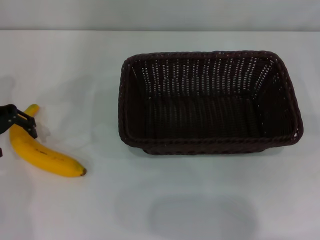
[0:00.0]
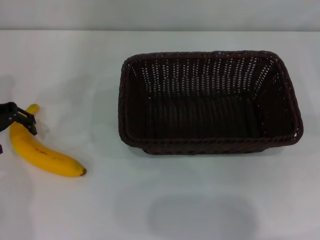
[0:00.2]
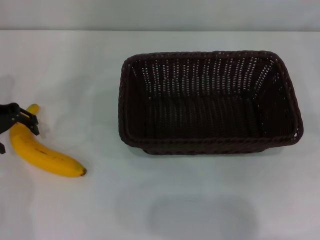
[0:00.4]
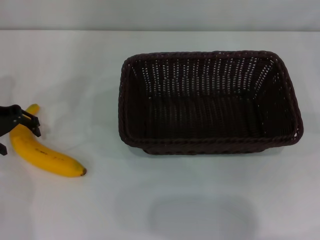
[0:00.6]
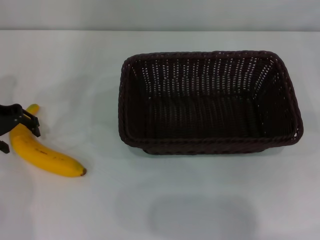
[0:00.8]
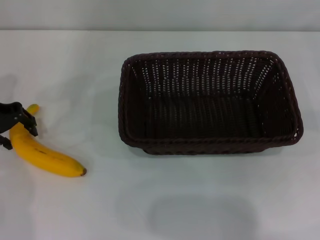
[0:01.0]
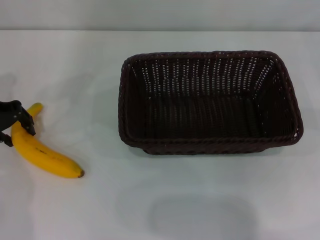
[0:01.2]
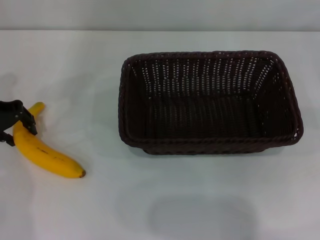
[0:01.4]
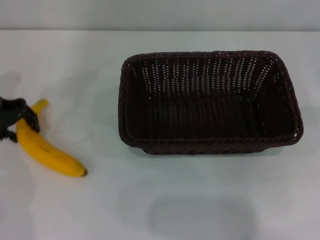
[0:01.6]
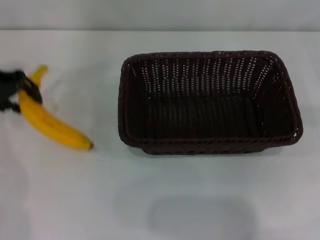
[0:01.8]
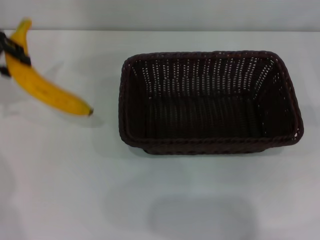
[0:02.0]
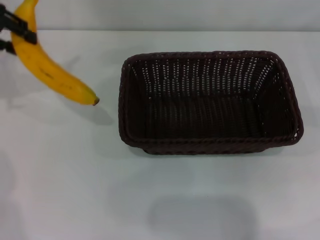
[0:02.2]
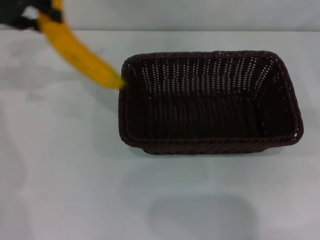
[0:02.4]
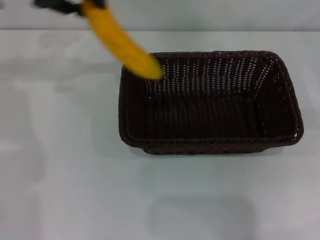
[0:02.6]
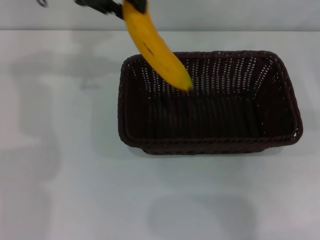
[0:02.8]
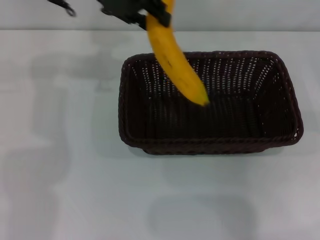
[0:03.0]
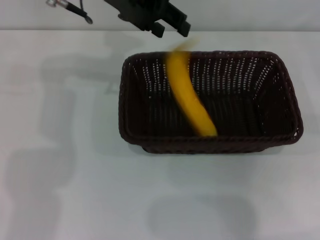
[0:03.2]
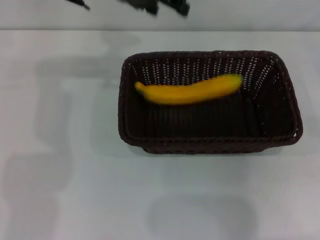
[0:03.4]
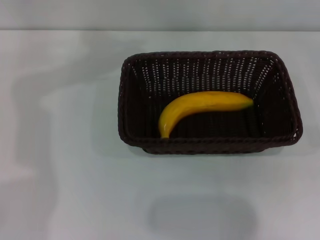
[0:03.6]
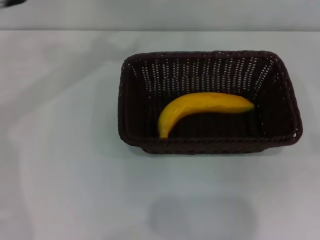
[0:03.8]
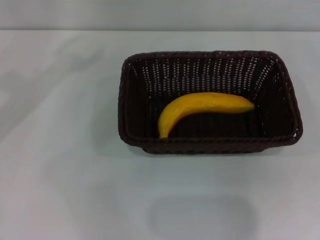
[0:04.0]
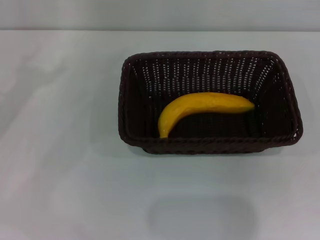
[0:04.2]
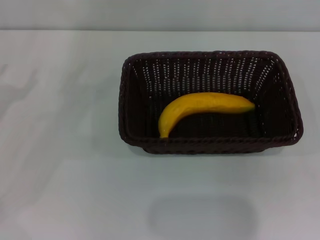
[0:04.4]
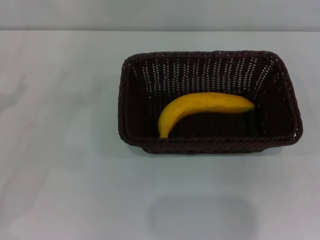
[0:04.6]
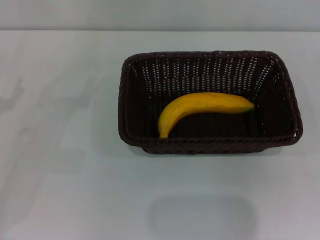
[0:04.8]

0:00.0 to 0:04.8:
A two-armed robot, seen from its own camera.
Step, 0:00.0 to 0:02.0: Pick up the banana with the left gripper.
Step, 0:02.2 to 0:03.2: Place the banana into the dark basket with the left gripper.
0:00.0 to 0:01.6: The left gripper closes its fingers.
0:01.6 to 0:03.2: The left gripper moves to the right and upward, some 20 cm.
0:03.2 to 0:04.8: The left gripper heads to the left, downward and backward, covering some 35 cm, and opens; the right gripper goes some 10 cm downward and backward.

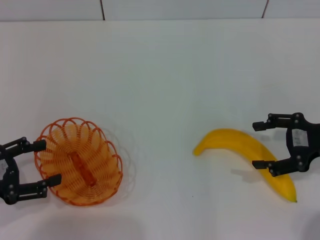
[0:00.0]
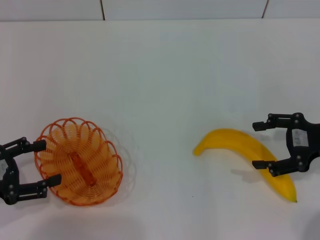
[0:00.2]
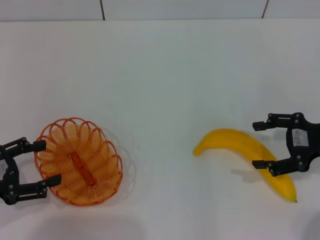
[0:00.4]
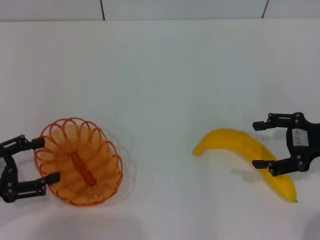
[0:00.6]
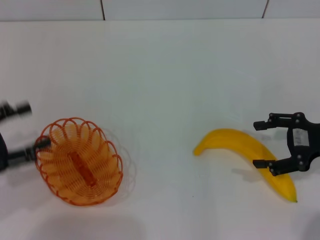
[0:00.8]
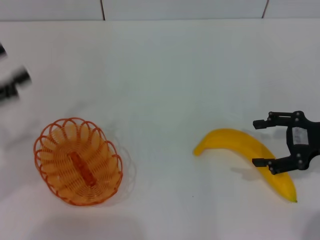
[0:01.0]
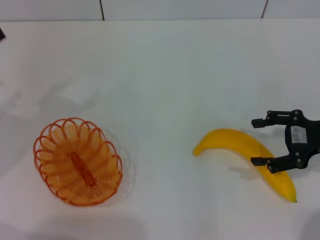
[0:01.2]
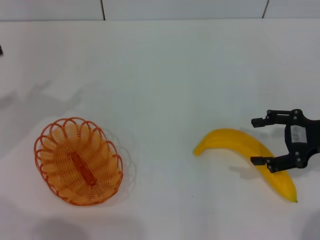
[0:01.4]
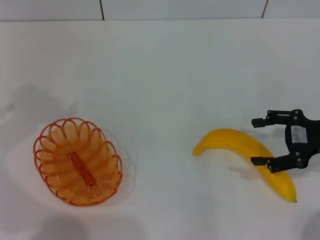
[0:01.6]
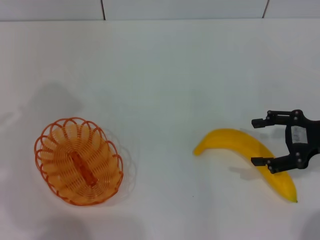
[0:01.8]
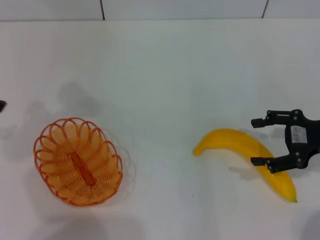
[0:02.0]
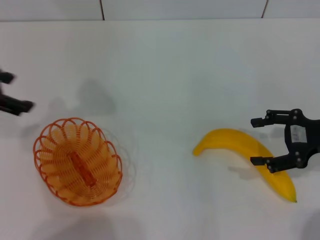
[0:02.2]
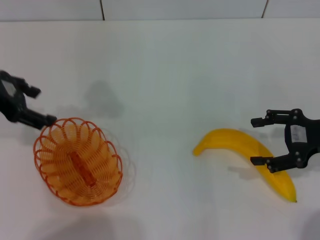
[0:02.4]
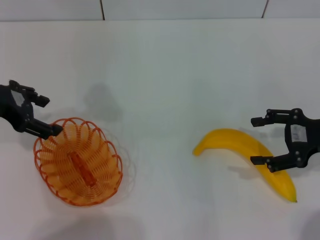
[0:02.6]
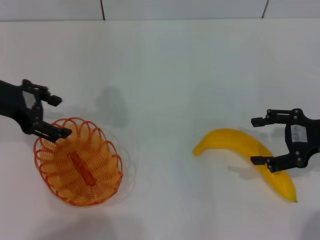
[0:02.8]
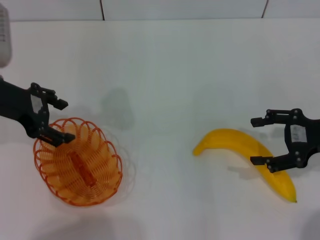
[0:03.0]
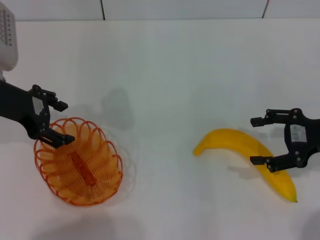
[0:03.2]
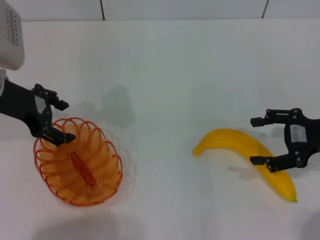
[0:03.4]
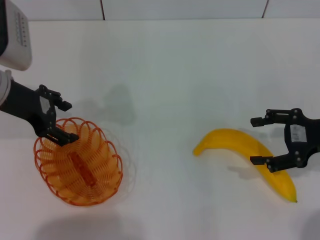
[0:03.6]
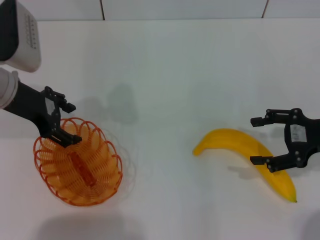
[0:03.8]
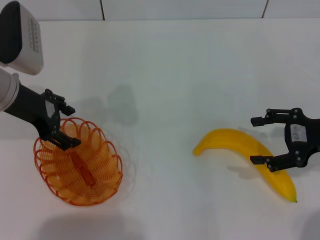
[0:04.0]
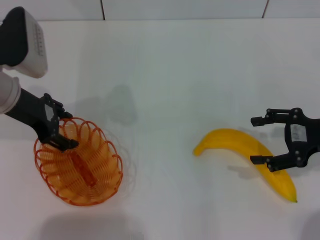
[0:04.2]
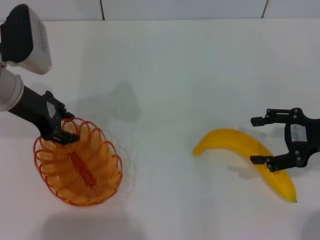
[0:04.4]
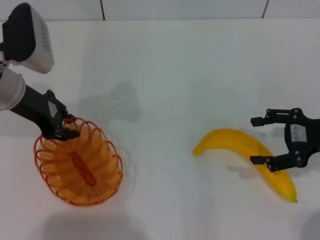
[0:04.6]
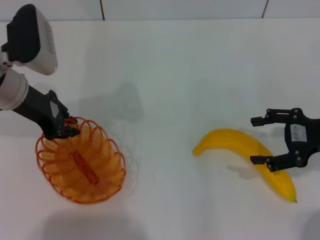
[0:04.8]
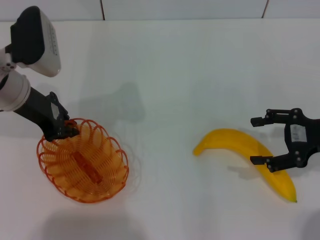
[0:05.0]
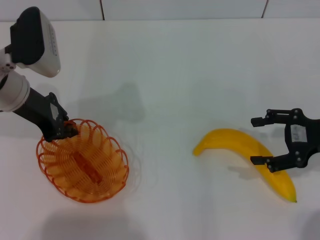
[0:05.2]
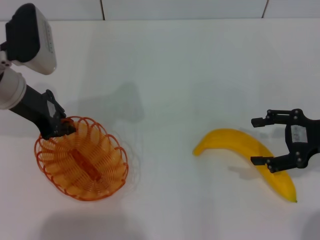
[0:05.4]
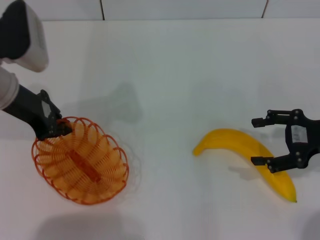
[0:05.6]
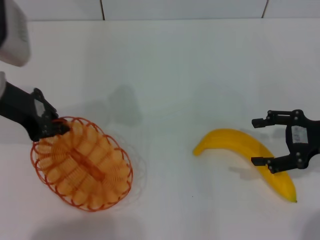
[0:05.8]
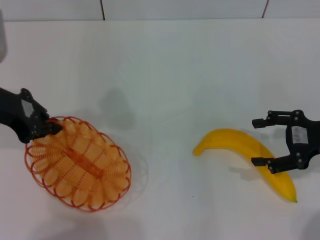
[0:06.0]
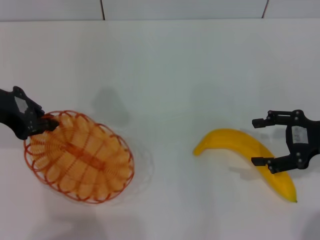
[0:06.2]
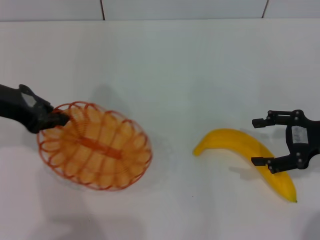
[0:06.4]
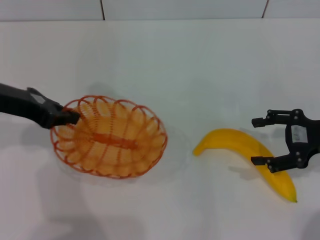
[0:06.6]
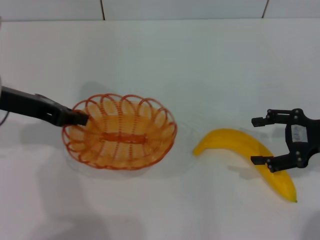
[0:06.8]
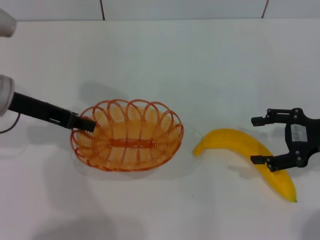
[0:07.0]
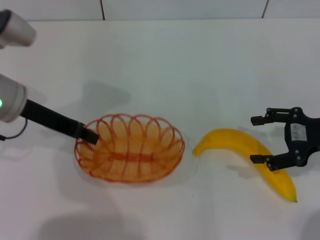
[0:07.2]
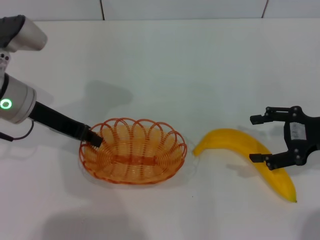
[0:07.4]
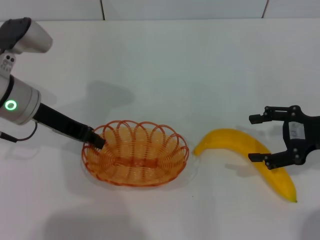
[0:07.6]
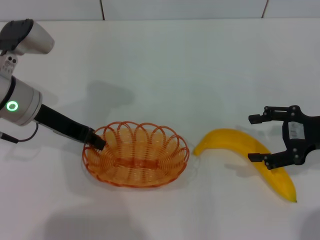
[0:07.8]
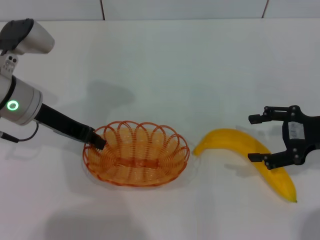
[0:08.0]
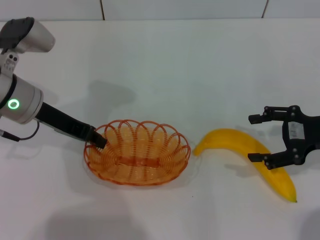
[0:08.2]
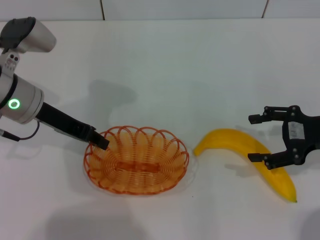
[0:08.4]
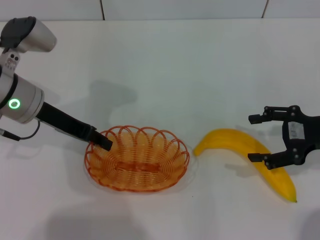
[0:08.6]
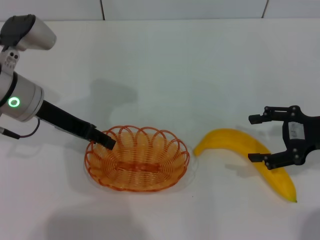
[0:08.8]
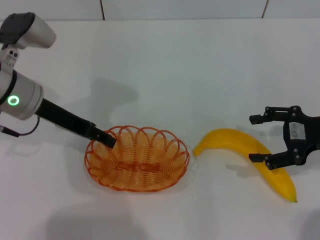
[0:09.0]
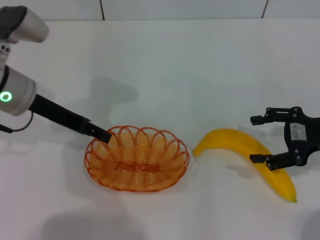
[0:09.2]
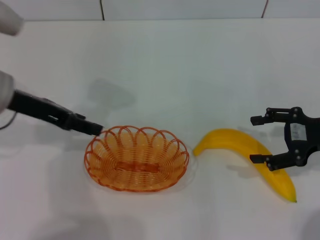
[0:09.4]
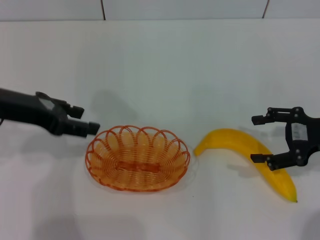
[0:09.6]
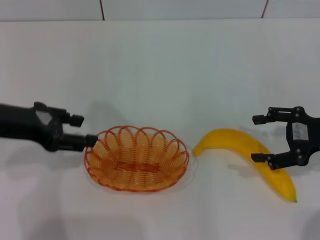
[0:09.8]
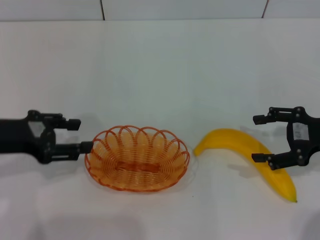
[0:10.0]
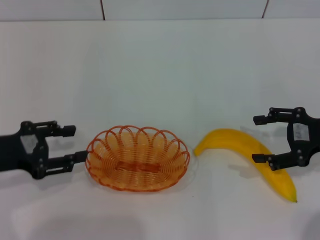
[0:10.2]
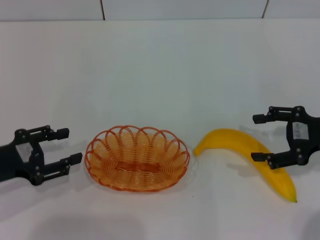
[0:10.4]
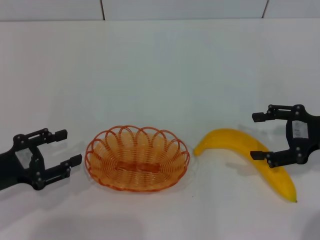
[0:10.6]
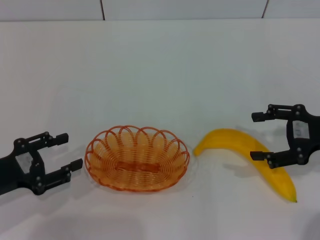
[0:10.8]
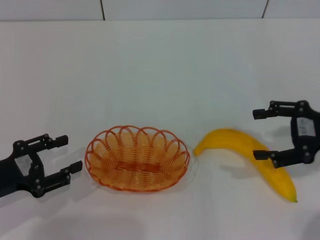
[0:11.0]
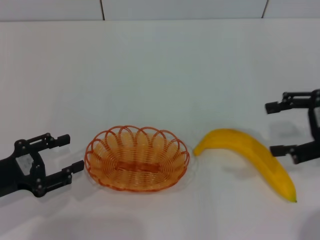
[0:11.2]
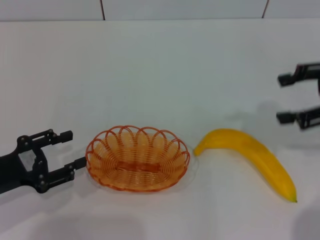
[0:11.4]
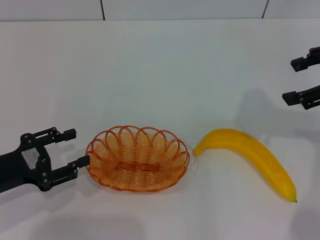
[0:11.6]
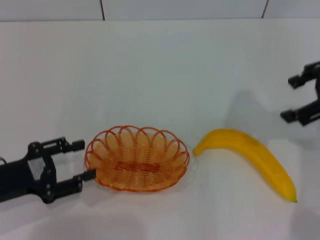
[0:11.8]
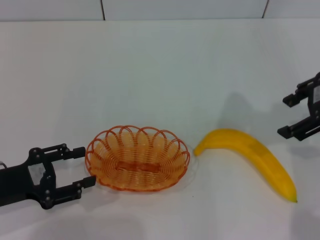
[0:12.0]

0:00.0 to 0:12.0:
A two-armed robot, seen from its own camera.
Step, 0:00.0 to 0:05.6: Pick up the basket with the left gripper.
Step, 0:05.8 to 0:10.2: Place the basket in the center of view with the left gripper.
0:00.0 to 0:01.6: The left gripper travels upward and forward by approximately 15 cm.
0:01.6 to 0:03.0: The left gripper goes roughly 15 cm to the right.
0:03.0 to 0:04.4: The grippers stay close to where they were, moving slightly.
0:04.4 to 0:06.0: The left gripper moves approximately 5 cm, and closes its fingers.
0:06.0 to 0:07.6: The left gripper travels downward by roughly 5 cm.
0:07.6 to 0:09.0: The left gripper opens up.
0:09.0 to 0:10.4: The left gripper shifts roughly 15 cm backward, to the left and downward.
0:10.4 to 0:12.0: The right gripper travels upward by roughly 15 cm.

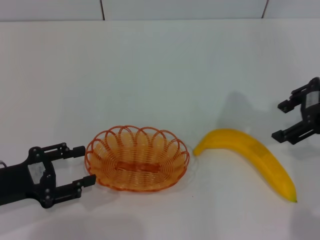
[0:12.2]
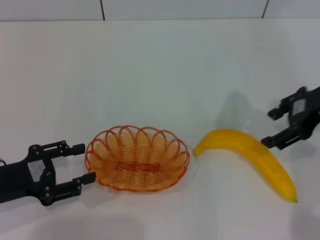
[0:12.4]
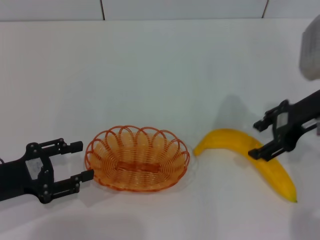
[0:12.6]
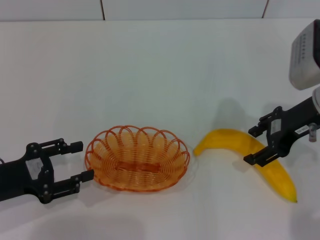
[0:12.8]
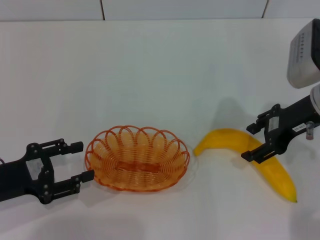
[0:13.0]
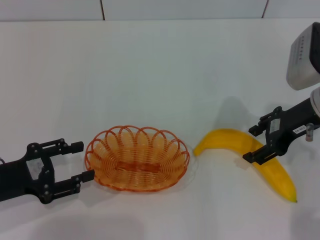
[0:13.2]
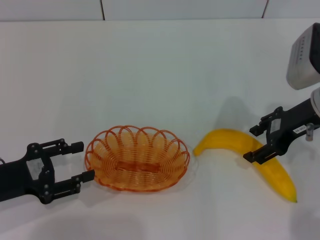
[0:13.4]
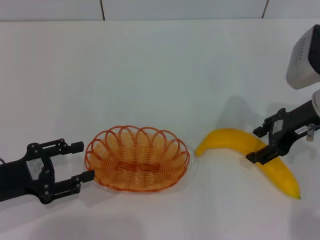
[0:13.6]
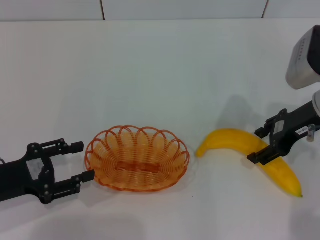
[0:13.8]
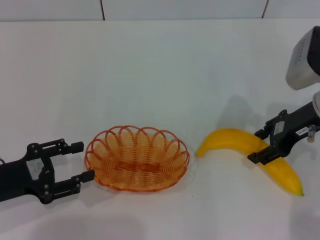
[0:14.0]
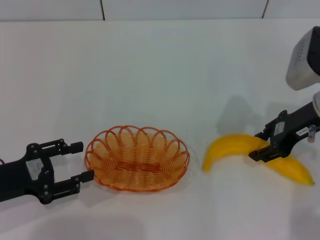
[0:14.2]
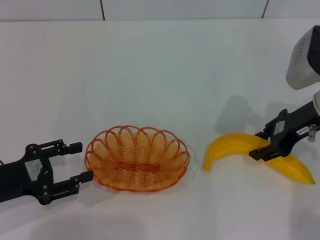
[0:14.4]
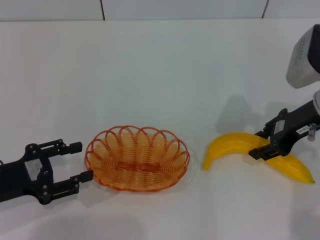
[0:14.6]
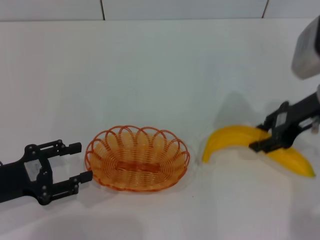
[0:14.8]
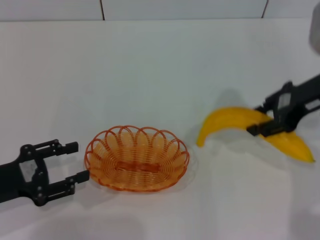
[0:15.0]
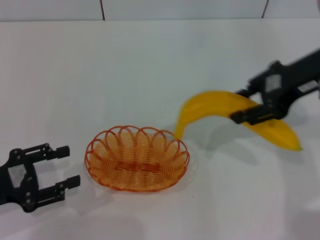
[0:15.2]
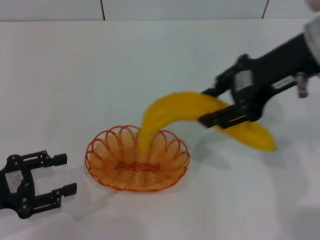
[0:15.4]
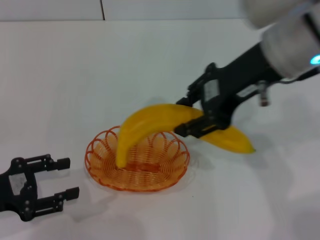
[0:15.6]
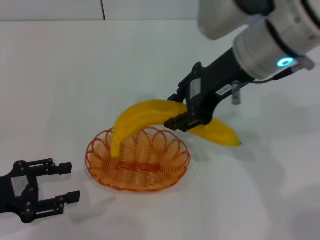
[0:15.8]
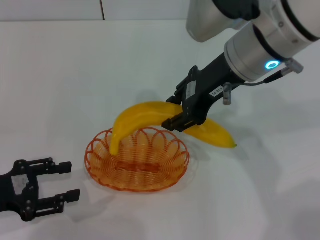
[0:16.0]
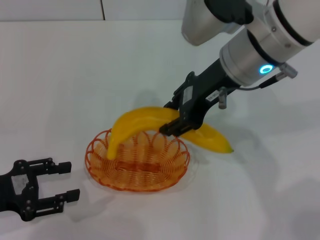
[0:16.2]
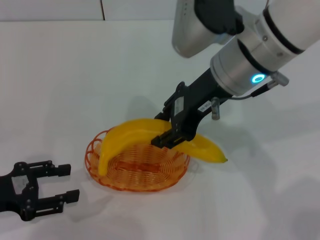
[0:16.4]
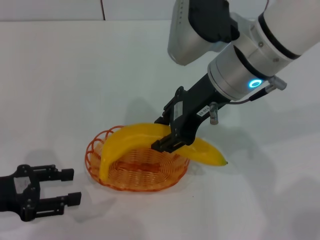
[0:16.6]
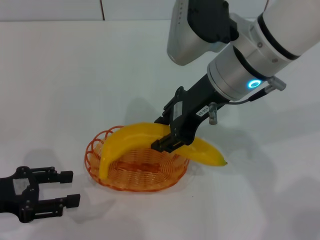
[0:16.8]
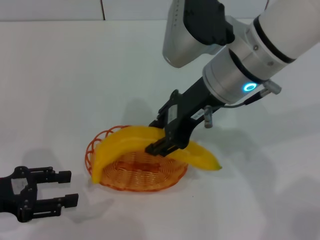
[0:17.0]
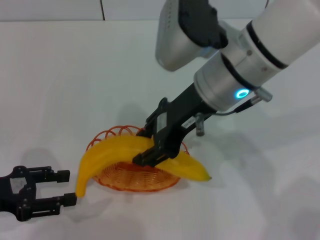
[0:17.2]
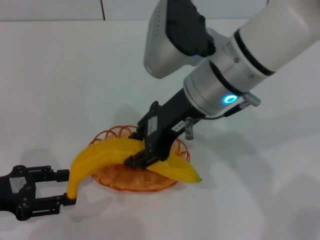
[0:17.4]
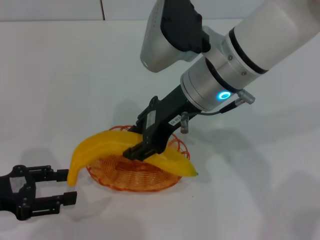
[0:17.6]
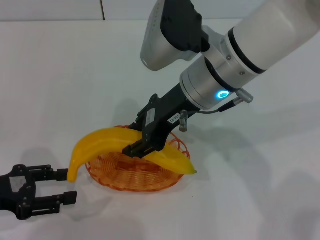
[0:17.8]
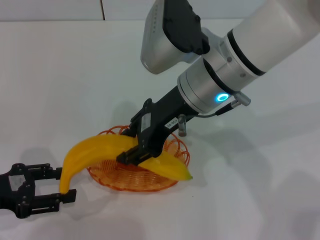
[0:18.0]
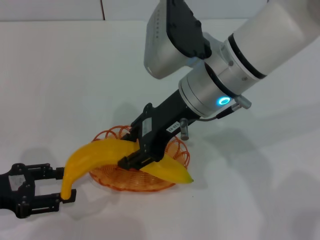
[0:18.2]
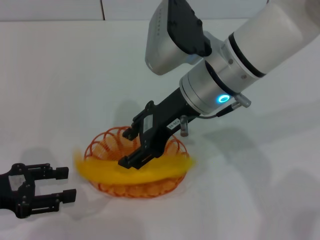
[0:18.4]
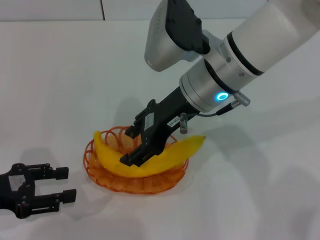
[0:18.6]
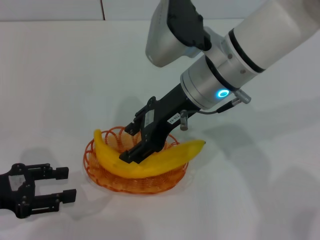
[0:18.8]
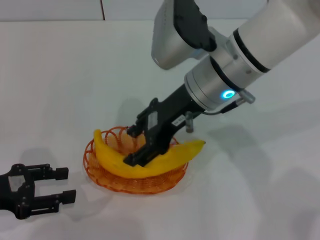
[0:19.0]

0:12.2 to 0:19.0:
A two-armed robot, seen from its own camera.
Step, 0:12.2 to 0:15.0: Pick up the banana with the right gripper.
Step, 0:15.2 to 0:18.8: Place the banana into the basket with the right gripper.
0:12.2 to 0:13.6: The right gripper shifts approximately 10 cm downward.
0:13.6 to 0:15.0: The right gripper shifts roughly 5 cm upward, and closes its fingers.
0:15.0 to 0:16.2: The right gripper travels to the left by roughly 15 cm.
0:16.2 to 0:17.6: The right gripper ends up approximately 5 cm from where it was.
0:17.6 to 0:19.0: The grippers make only small movements.
